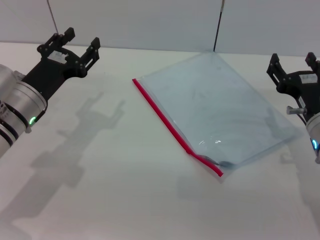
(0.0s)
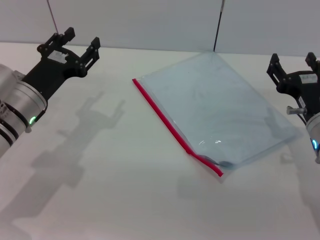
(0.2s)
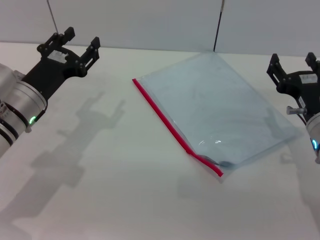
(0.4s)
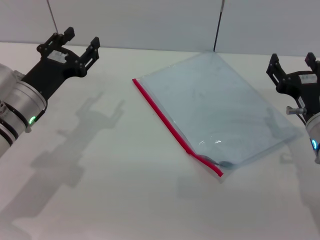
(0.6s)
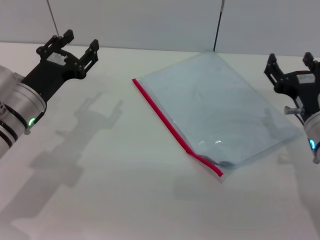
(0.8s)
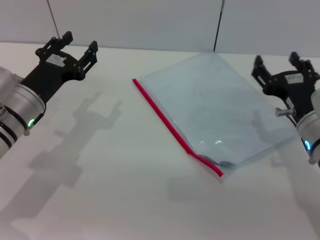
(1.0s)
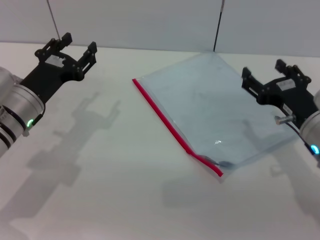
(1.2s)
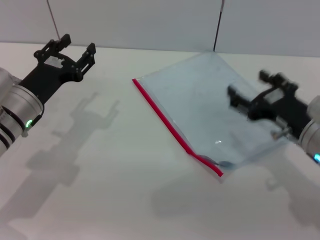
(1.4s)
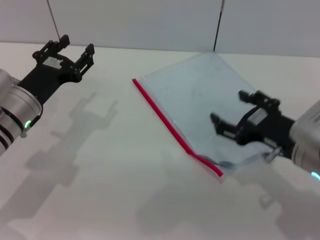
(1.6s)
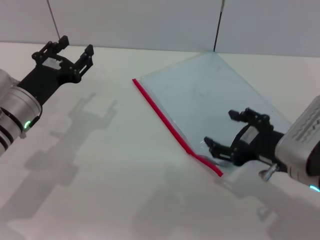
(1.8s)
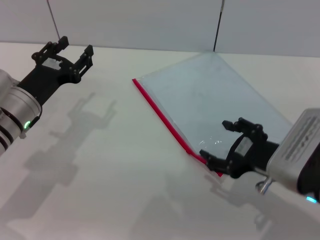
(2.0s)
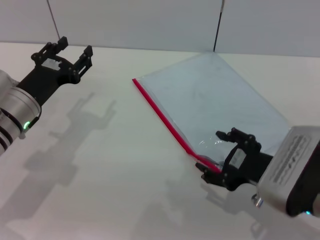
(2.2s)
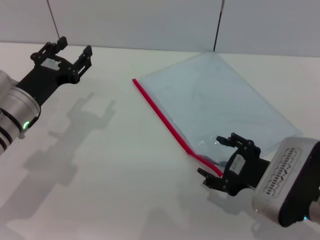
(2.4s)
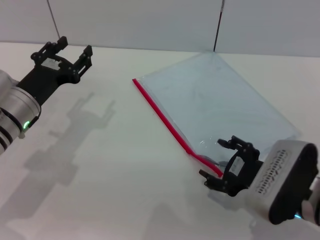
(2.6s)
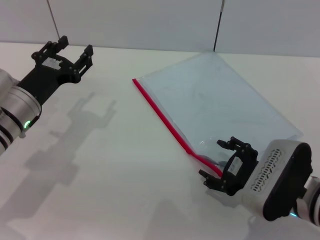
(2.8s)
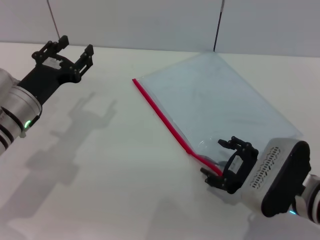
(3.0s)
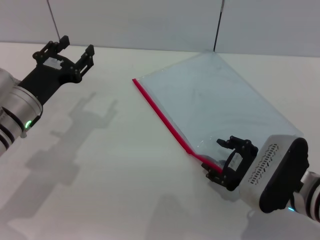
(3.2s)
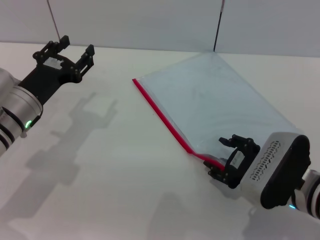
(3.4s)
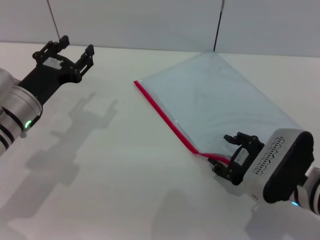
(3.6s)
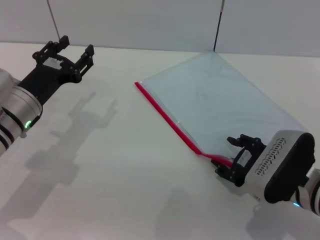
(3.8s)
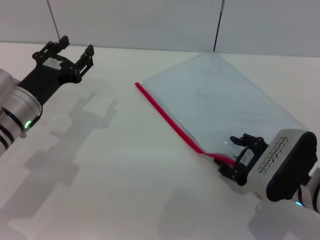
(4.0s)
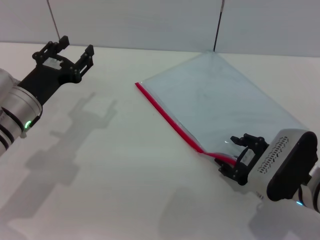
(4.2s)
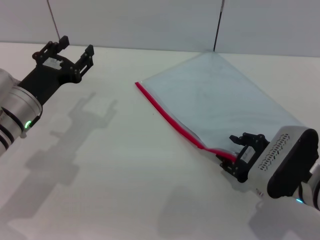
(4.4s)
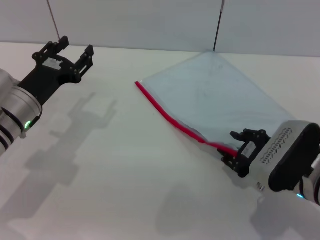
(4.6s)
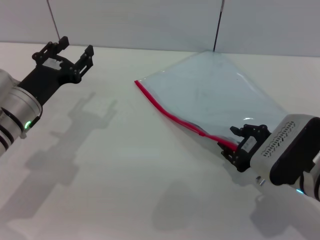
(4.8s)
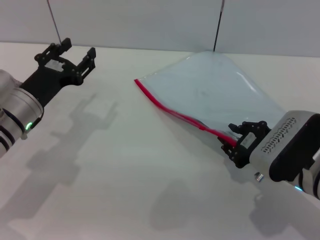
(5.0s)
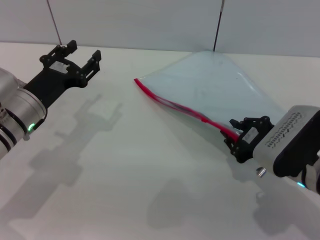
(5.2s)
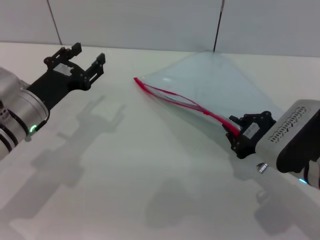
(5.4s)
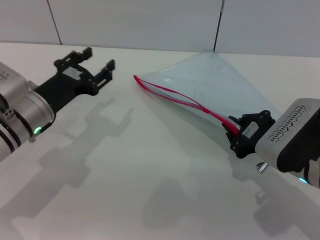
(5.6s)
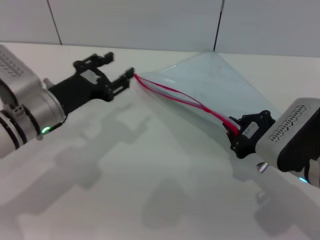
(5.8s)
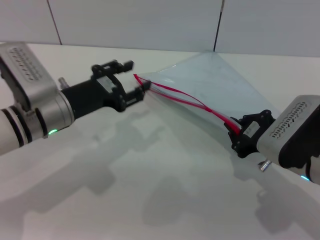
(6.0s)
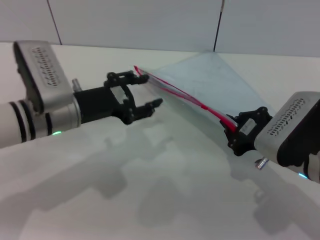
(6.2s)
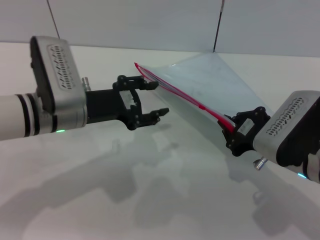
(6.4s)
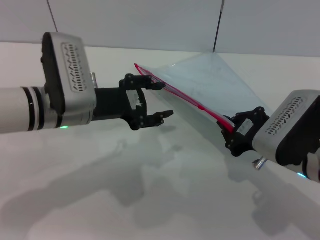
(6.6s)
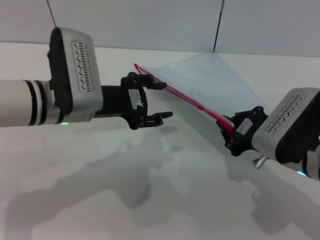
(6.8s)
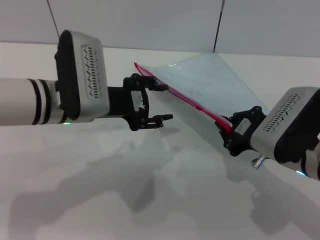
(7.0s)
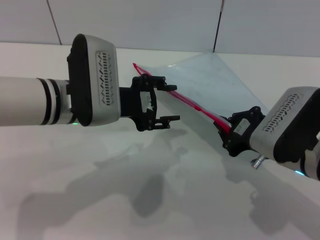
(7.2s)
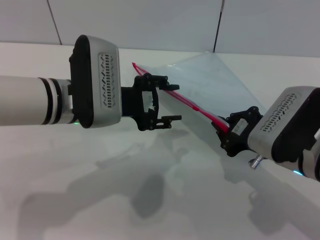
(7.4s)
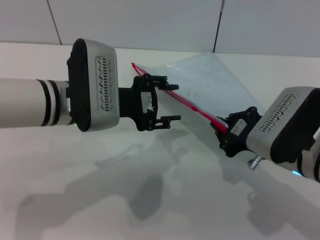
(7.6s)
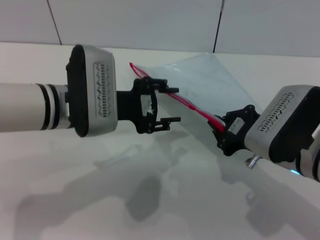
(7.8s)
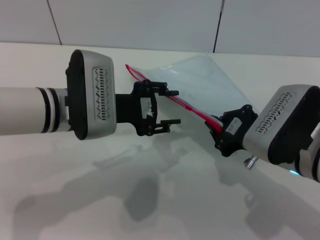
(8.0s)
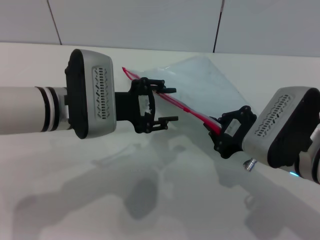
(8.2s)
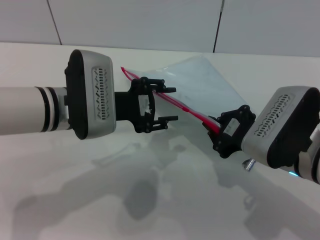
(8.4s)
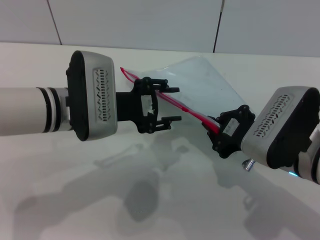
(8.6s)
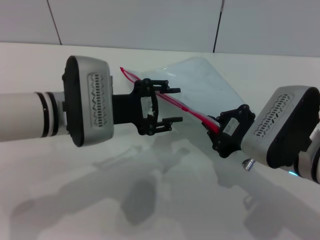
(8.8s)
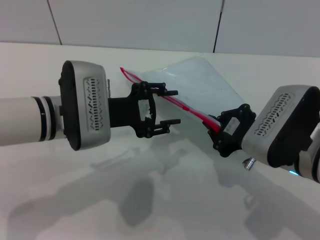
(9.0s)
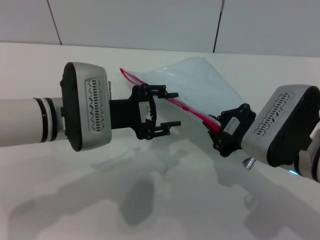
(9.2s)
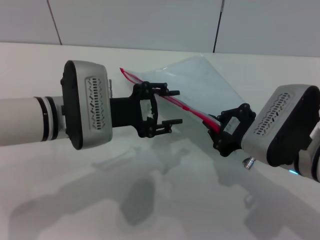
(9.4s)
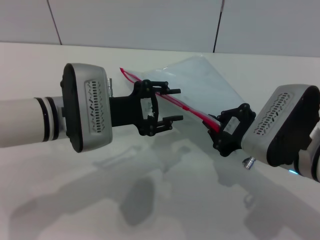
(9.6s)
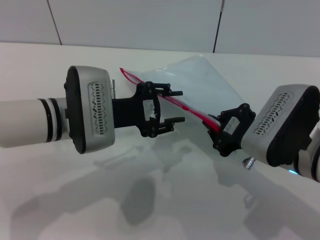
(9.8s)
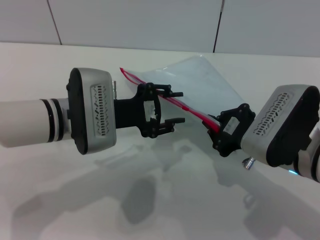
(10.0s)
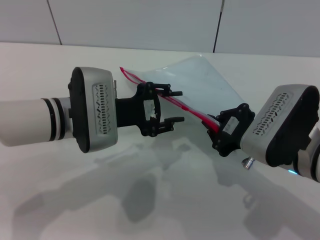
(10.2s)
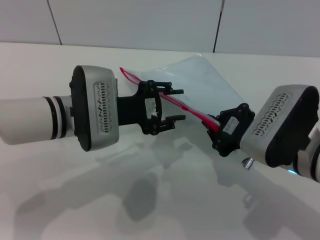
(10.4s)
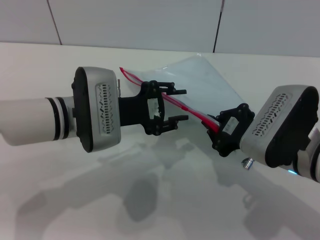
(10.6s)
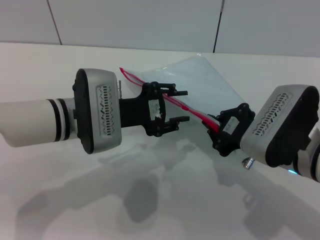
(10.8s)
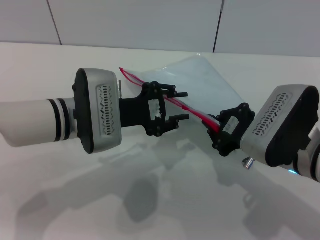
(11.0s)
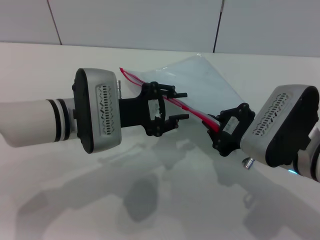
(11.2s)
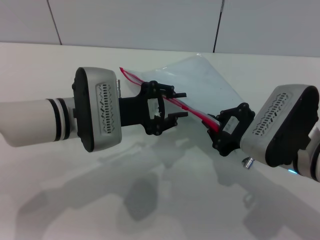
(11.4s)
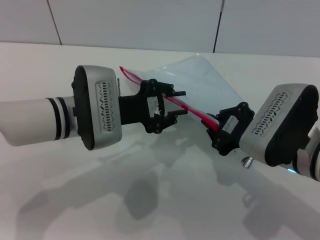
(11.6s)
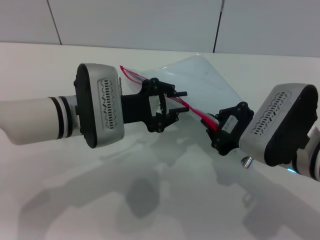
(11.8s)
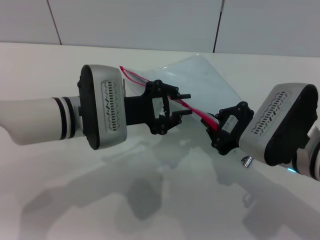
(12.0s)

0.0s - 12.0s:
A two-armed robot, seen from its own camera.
Step, 0.0s - 7.4s: Pick up the transparent plastic bag with the right gripper.
0.0s - 1.6s: The right gripper ends up about 5 cm from where it was.
1.6s - 3.0s: The right gripper goes about 5 cm downward.
3.0s - 4.4s: The grippers stay close to where they were, moving slightly.
4.4s - 6.0s: The right gripper closes its fingers.
6.0s - 7.6s: The left gripper moves to the right and upward, some 10 cm.
7.6s - 10.4s: There are only small adjustments of the grippers.
10.4s - 12.0s: The left gripper closes its fingers.

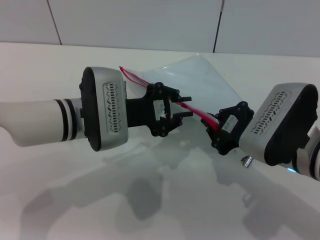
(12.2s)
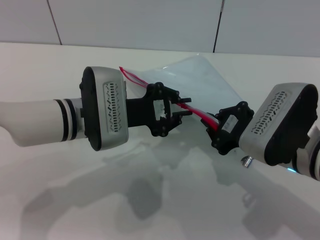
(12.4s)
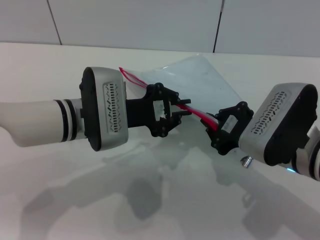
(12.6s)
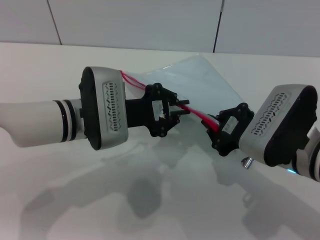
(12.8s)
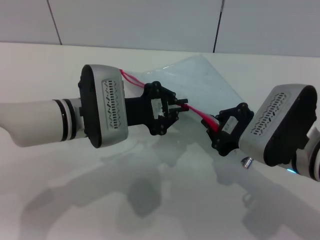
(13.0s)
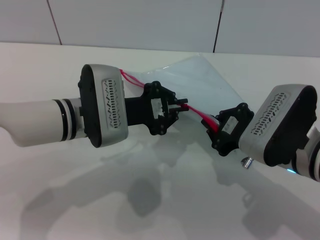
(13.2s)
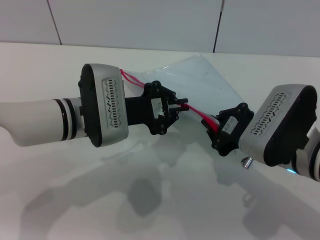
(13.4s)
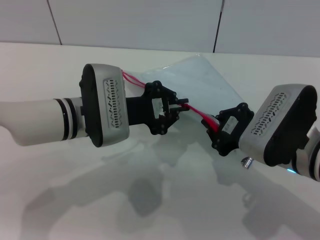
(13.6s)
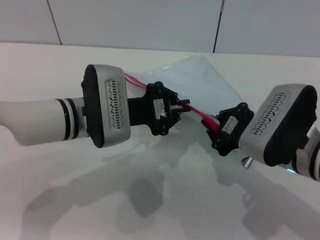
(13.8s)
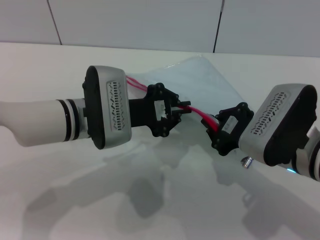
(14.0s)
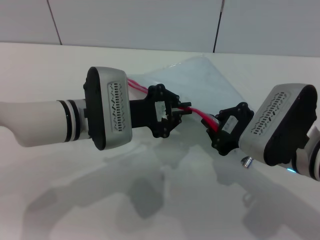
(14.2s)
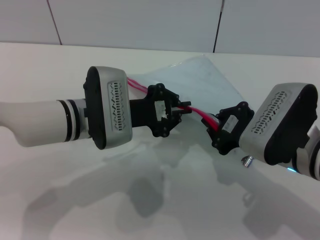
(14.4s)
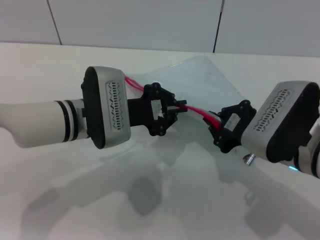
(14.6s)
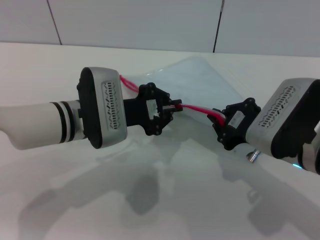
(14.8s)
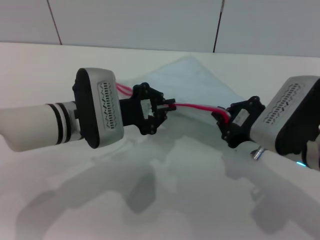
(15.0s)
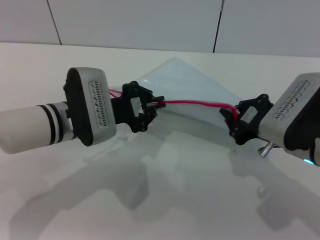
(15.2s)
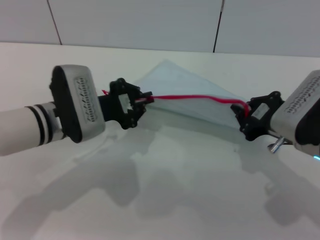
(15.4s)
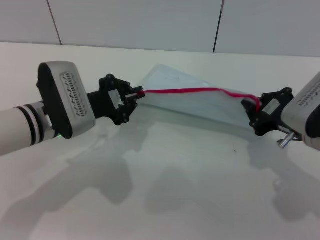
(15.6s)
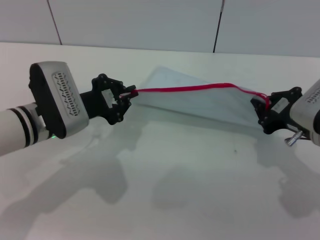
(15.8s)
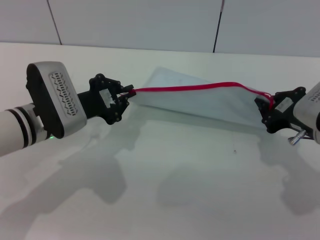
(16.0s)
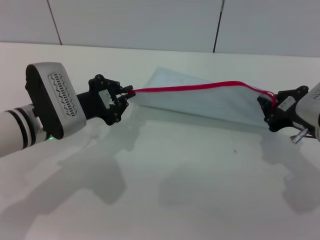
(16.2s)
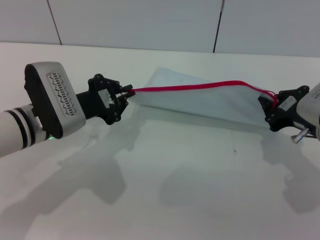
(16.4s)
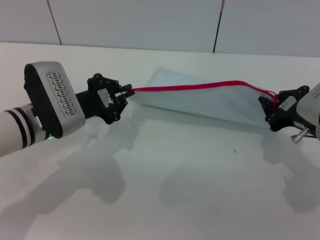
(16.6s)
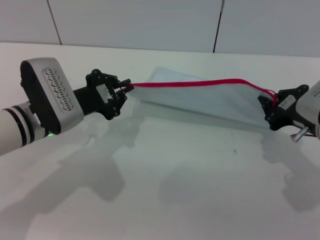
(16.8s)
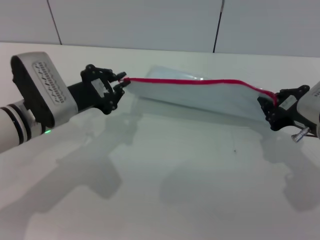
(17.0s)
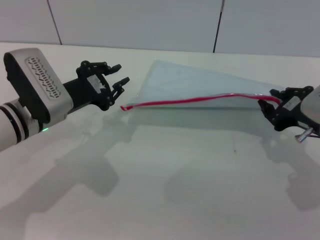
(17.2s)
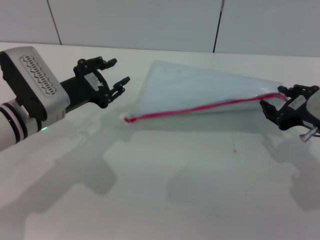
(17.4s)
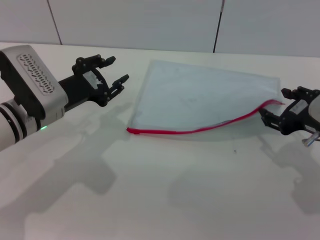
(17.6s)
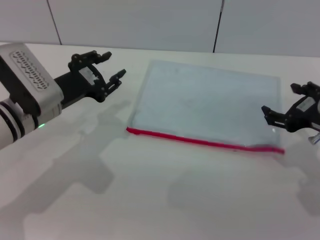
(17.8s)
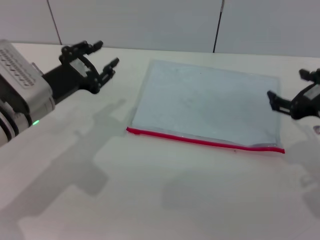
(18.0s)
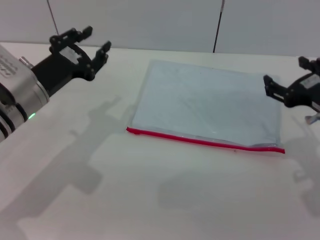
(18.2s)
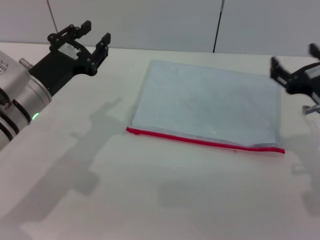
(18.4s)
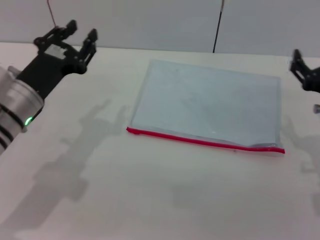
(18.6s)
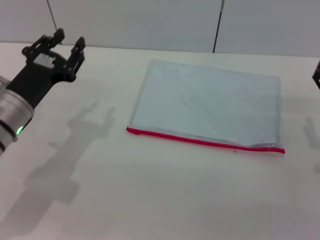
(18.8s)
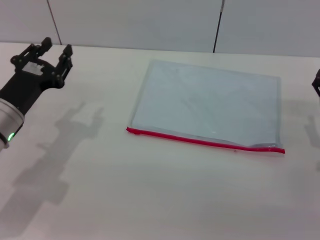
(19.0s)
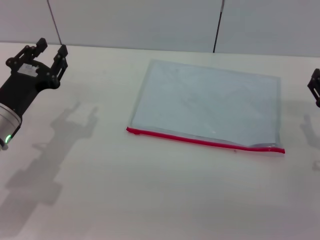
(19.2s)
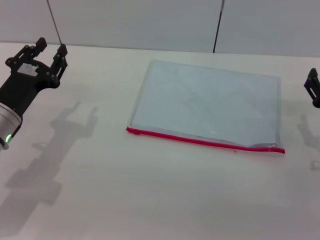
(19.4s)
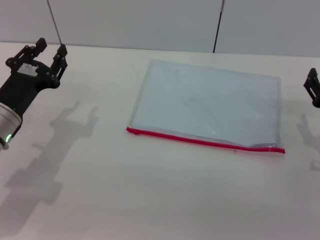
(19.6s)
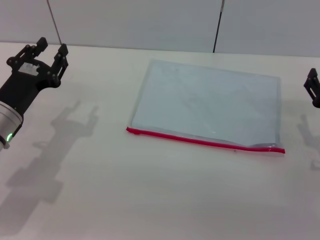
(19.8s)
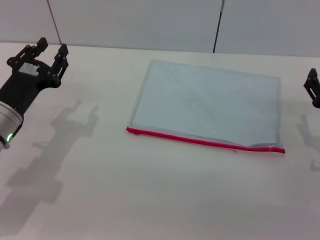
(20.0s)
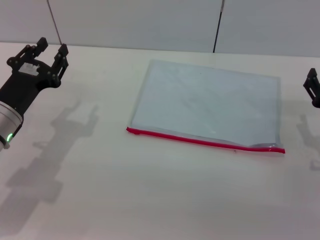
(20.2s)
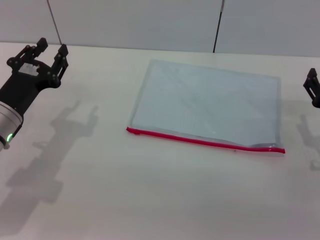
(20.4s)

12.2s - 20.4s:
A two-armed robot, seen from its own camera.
Step, 12.2s - 16.8s: Pulling up the zipper on the transparent plastic bag with the left gripper to close it.
Step, 17.0s - 18.2s: Place the transparent plastic bag.
12.2s - 13.8s: Neither gripper changes place.
17.2s - 18.8s: The right gripper moves roughly 5 cm, and opens, while the left gripper opens.
18.8s - 20.4s: The grippers stay close to where they were, moving slightly.
